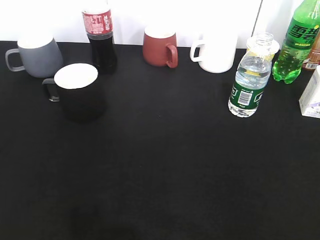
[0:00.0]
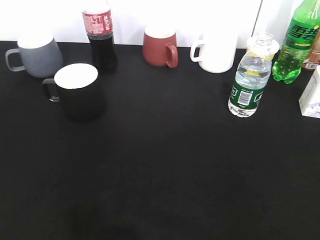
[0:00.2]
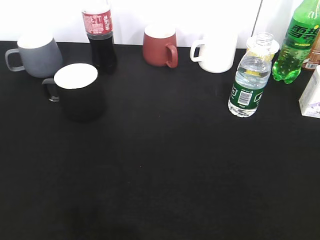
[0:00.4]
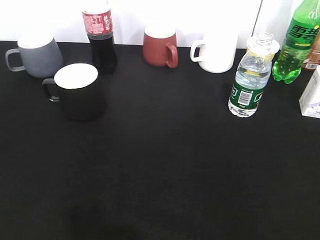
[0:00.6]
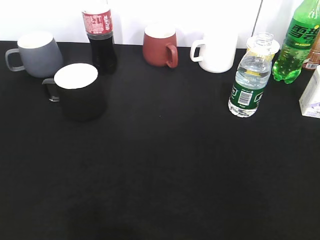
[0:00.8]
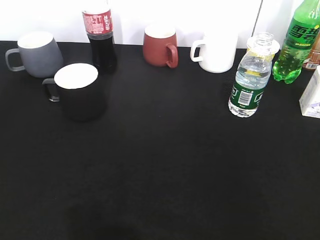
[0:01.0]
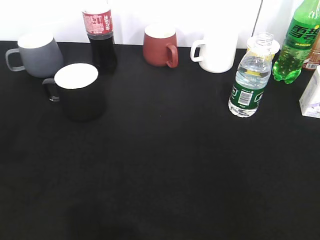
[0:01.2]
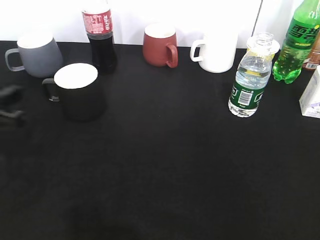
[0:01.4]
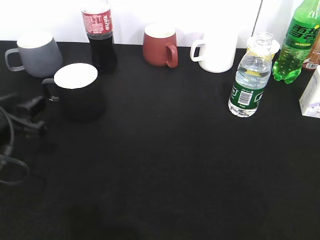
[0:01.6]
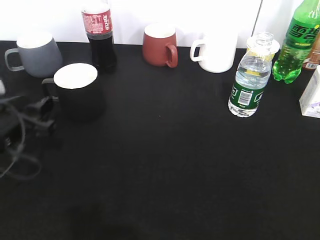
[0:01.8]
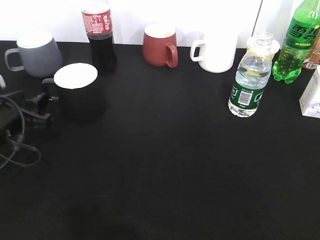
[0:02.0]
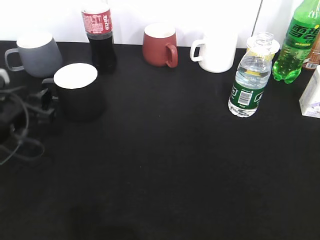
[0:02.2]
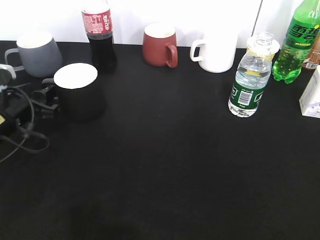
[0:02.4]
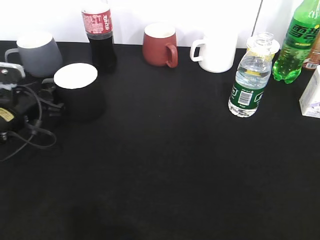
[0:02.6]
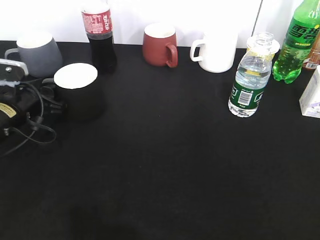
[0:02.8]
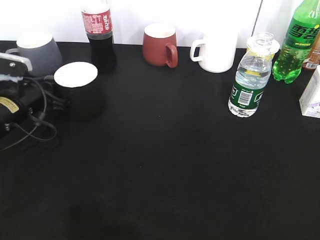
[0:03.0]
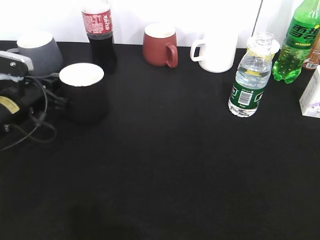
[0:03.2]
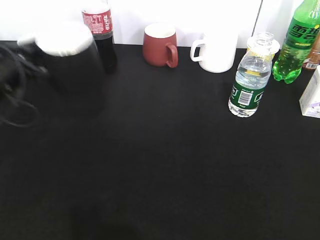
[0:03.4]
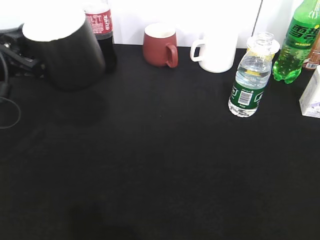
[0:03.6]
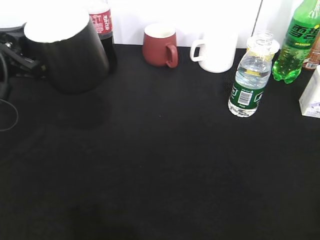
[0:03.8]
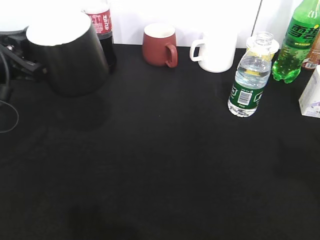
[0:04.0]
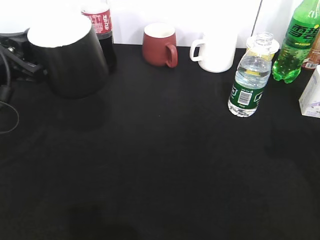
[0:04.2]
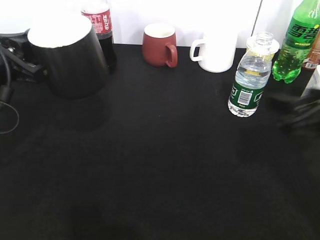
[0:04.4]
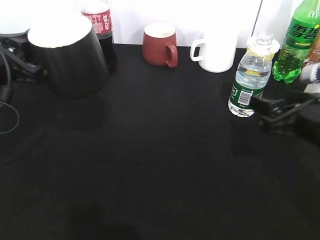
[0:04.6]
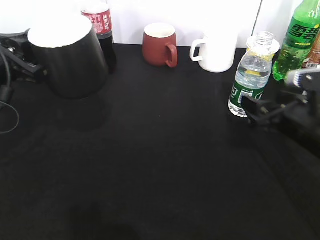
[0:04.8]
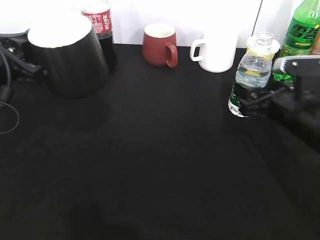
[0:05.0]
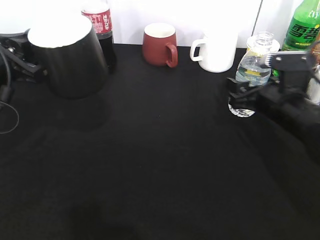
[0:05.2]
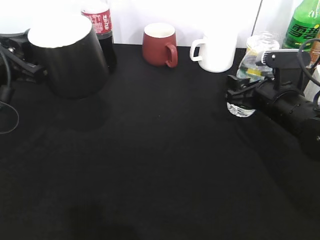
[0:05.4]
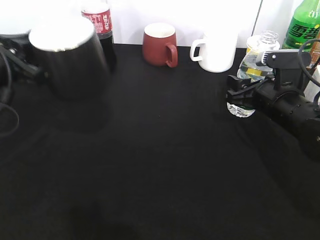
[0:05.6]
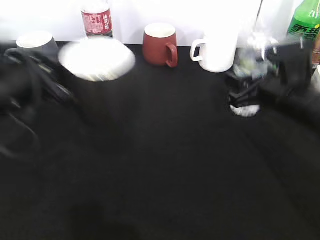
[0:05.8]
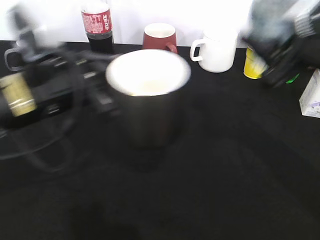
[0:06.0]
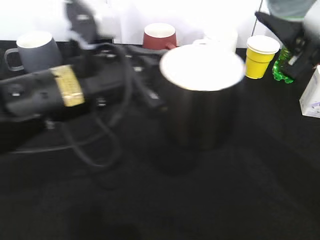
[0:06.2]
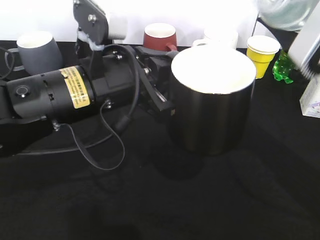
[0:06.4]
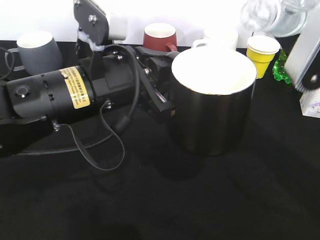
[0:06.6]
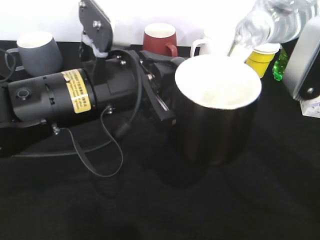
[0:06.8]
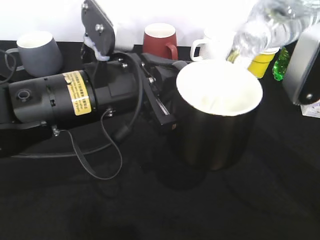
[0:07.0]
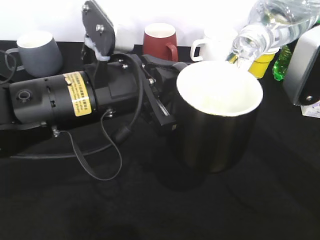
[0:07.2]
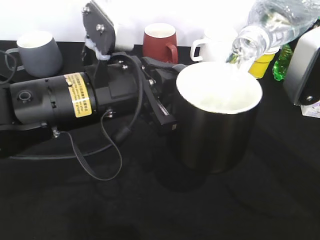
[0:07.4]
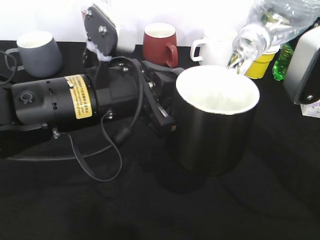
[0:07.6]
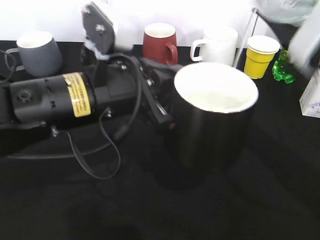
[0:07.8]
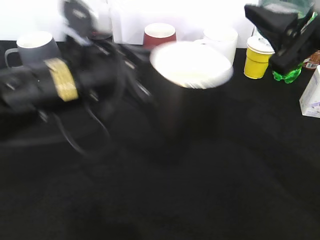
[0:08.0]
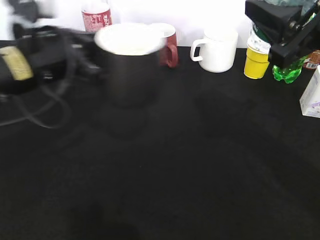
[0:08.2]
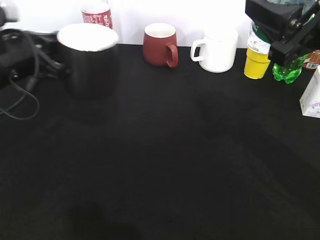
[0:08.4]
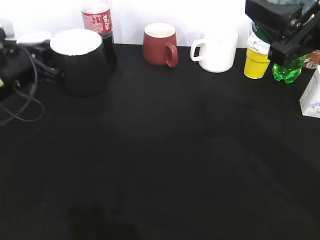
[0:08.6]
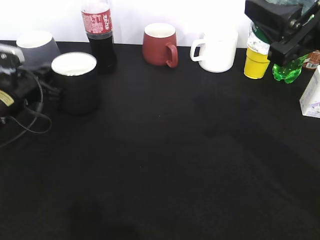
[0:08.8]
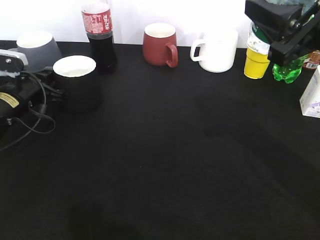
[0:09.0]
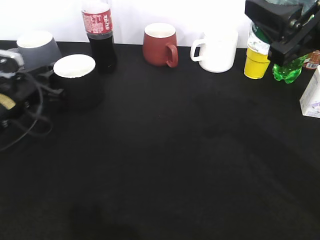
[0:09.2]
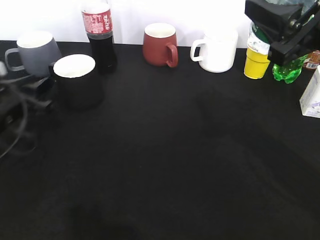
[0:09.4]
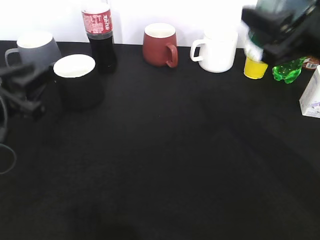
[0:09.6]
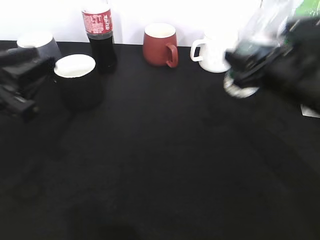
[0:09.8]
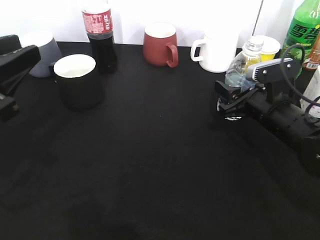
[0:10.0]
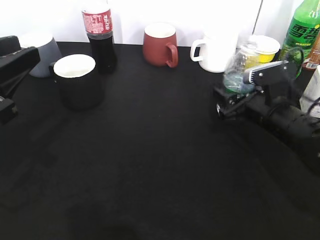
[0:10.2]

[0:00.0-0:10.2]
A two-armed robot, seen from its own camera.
Step, 0:00.6 to 0:03.0: Grasp the black cup with left gripper.
Step, 0:03.2 to 0:03.6: Lift the black cup with left gripper.
Step, 0:03.8 to 0:05.4: Grasp the bottle with water with right gripper.
Step, 0:05.6 to 0:07.8: Pour the water from bottle to cup with right gripper.
Step, 0:08.0 to 0:09.2: Place the black cup on the table with left gripper.
0:01.4 to 0:03.0: The left gripper shifts some 15 cm forward and downward, and closes up.
0:03.0 to 0:04.4: The right gripper heads forward and downward, covering about 20 cm. Meanwhile the left gripper shifts roughly 10 cm upward and backward.
0:04.4 to 0:05.8: The left gripper changes place by about 5 cm, while the right gripper travels forward by about 10 cm, and closes its fingers.
0:05.8 to 0:07.2: The left gripper heads to the right, covering some 10 cm. Meanwhile the right gripper moves upward and backward, approximately 15 cm.
0:07.2 to 0:08.8: The left gripper shifts about 25 cm to the left, forward and downward.
0:08.8 to 0:10.2: The right gripper heads downward and forward, covering roughly 20 cm, and opens up; the left gripper moves backward and upward, some 20 cm, and opens up.

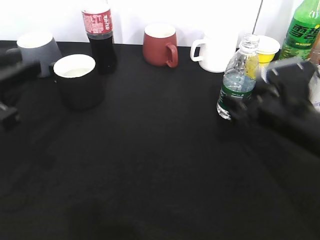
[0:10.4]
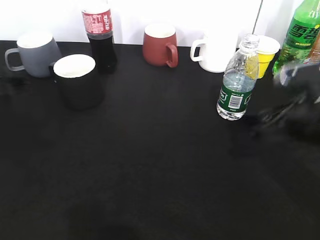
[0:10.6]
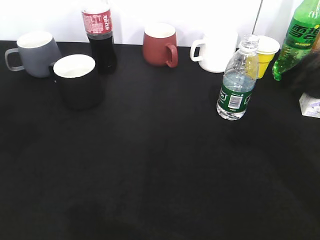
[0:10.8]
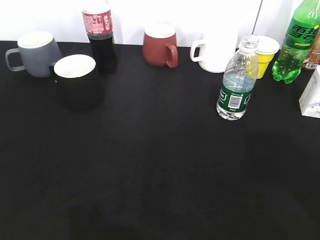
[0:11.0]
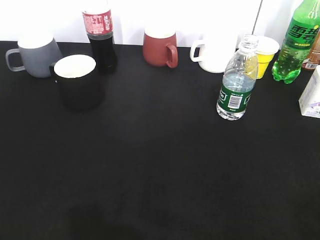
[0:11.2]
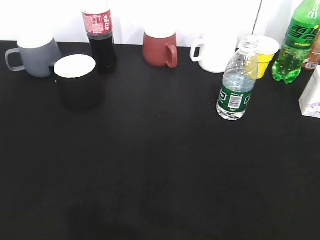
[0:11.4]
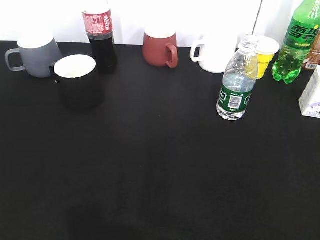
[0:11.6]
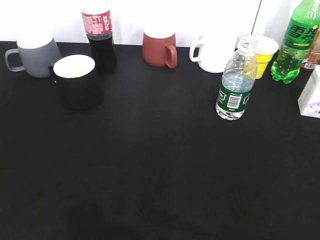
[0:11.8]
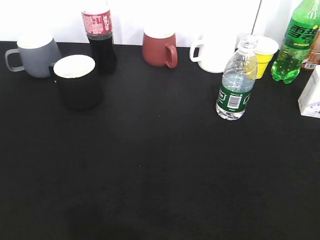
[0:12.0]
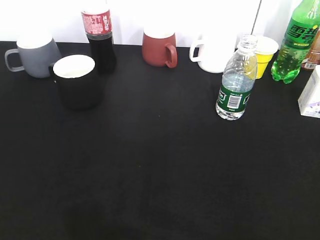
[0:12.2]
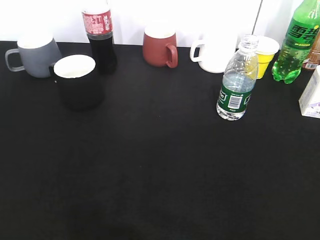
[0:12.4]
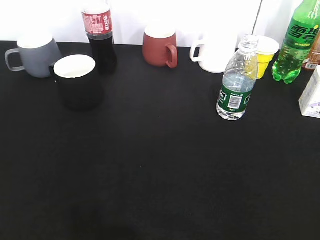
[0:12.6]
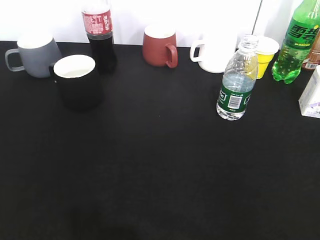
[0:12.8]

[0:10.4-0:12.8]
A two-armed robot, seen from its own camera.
0:10.4 to 0:11.6: The right gripper shifts approximately 30 cm backward and upward, and closes up. Meanwhile the left gripper heads backward and to the left, covering roughly 20 cm.

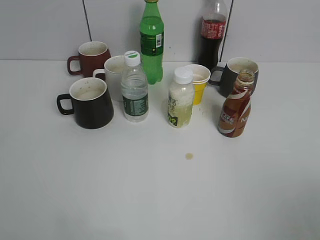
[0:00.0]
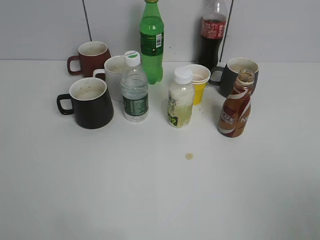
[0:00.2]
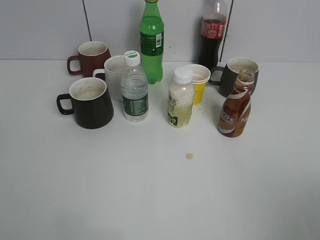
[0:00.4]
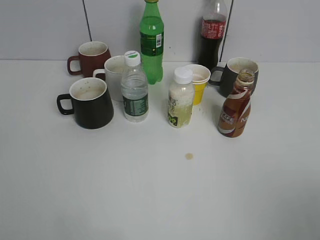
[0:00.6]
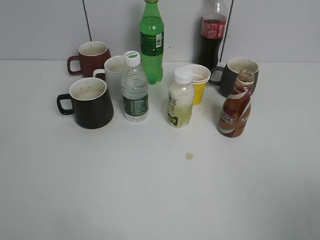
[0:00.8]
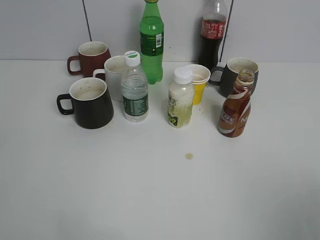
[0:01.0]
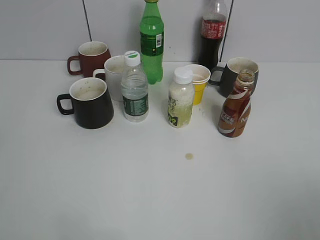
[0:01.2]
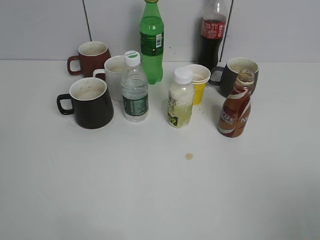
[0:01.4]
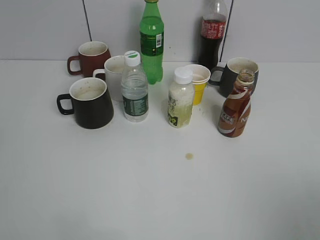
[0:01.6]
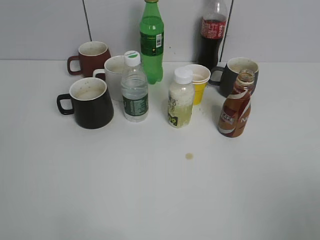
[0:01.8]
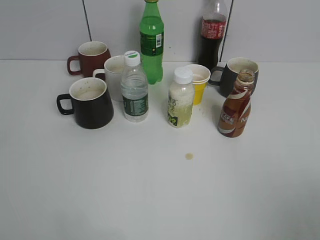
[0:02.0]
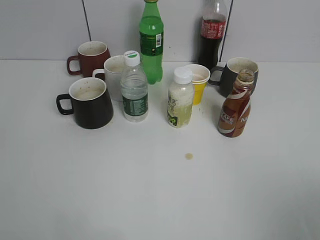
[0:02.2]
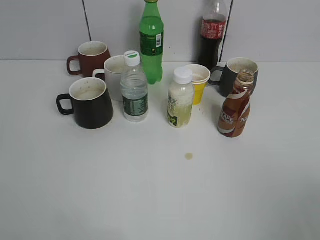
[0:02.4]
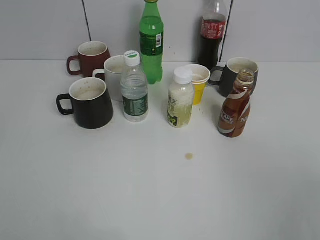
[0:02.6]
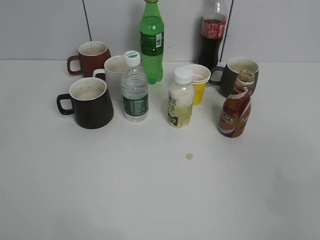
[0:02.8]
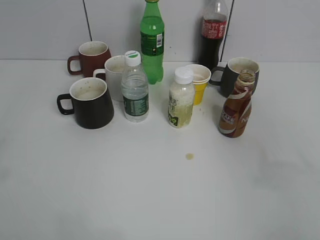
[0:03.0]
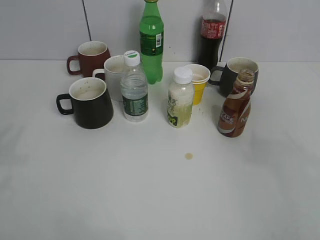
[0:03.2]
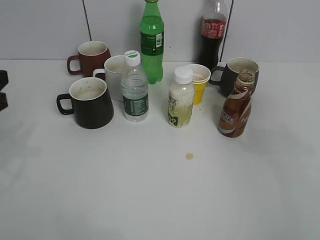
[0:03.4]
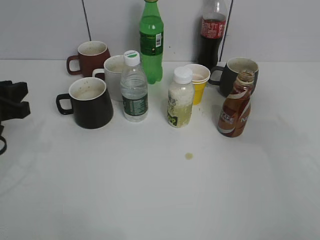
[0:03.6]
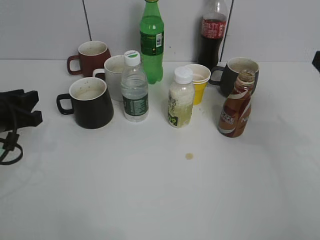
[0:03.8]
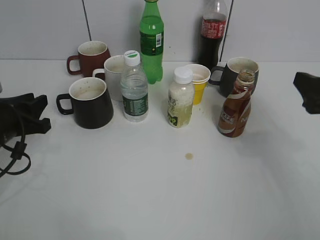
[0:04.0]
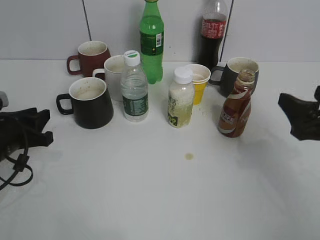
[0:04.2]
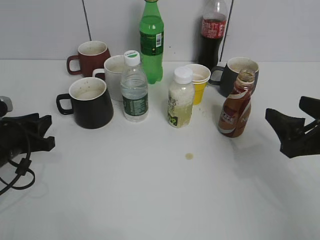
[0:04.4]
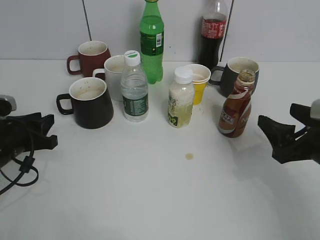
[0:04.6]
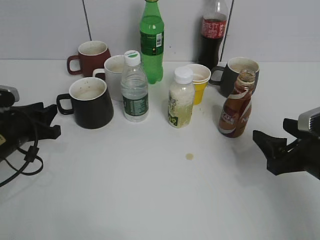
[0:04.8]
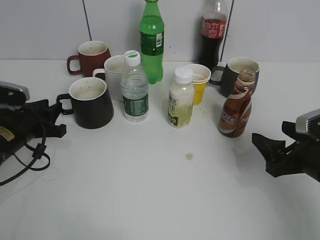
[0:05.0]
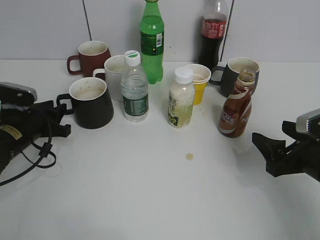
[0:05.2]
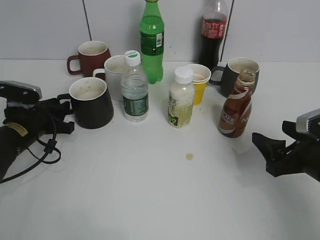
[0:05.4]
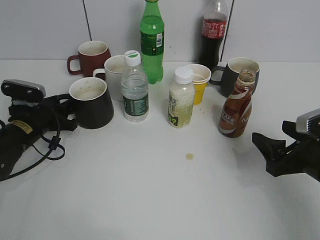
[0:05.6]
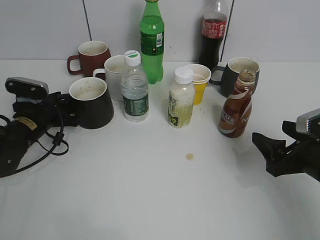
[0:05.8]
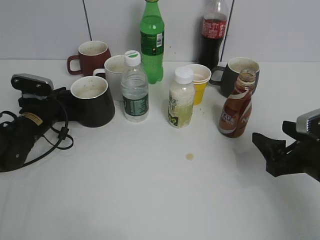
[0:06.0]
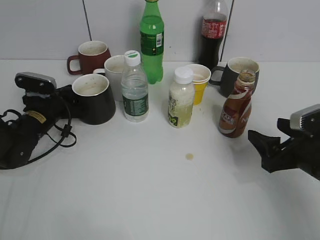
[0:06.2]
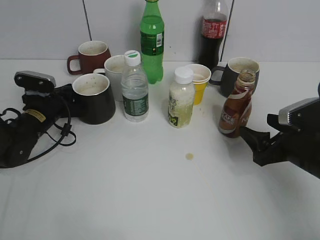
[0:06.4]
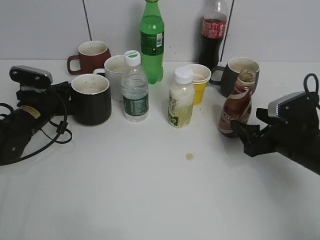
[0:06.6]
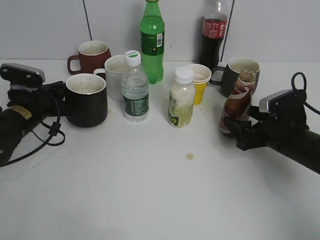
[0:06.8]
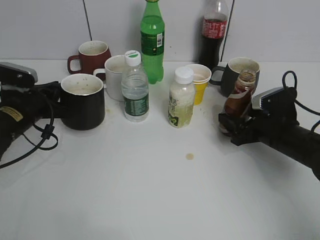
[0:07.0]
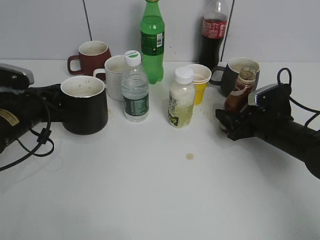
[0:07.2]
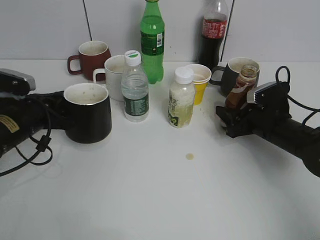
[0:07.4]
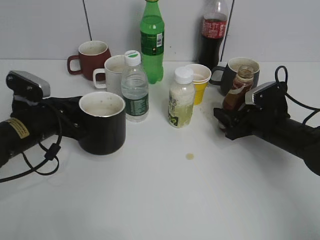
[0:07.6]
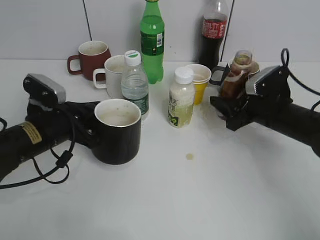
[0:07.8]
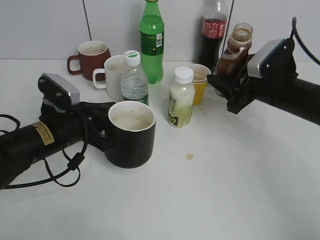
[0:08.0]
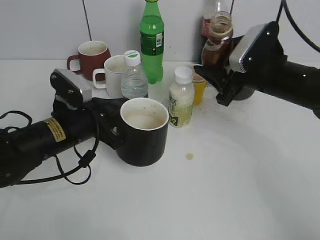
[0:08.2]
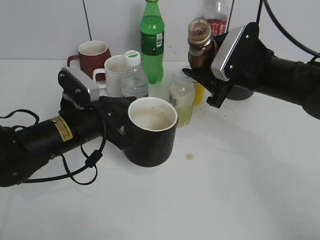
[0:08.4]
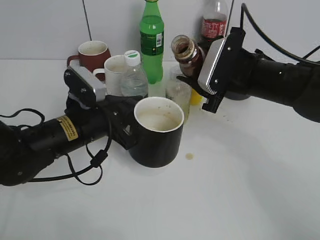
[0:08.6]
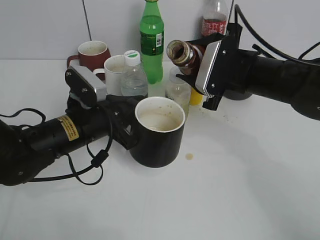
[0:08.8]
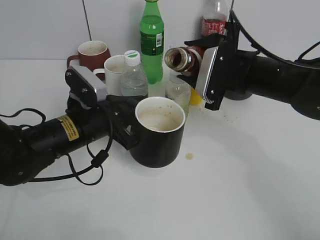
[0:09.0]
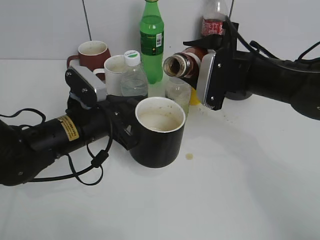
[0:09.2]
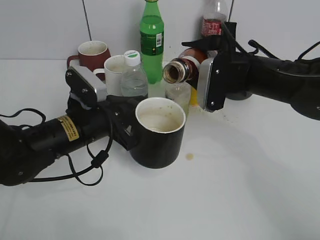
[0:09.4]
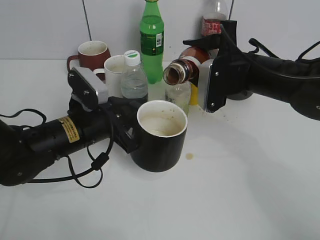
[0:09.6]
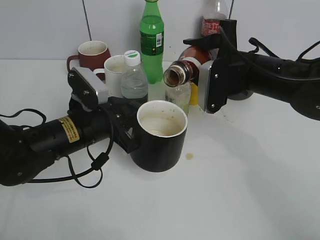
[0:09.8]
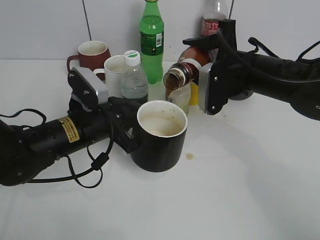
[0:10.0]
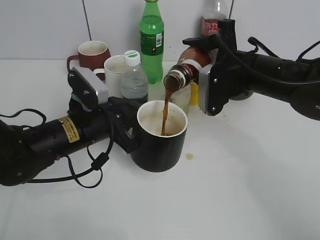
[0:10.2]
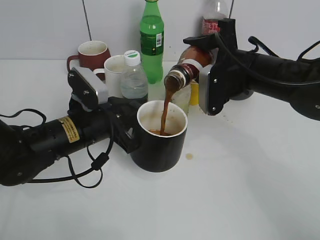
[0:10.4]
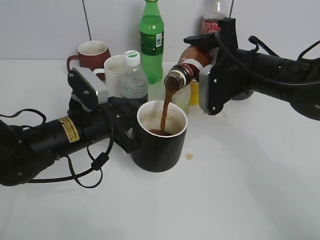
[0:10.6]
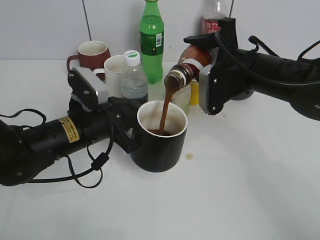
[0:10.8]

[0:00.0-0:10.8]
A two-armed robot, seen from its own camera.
Step, 0:02.2 to 0:06.0: Grasp the black cup with left gripper.
Step, 0:06.4 to 0:07.2: Lift the black cup with left gripper.
0:01.6 to 0:03.0: The right gripper travels forward by some 10 cm.
0:03.0 to 0:04.6: The two grippers go about 25 cm downward and forward.
0:04.6 to 0:06.2: The left gripper goes roughly 10 cm forward, and closes.
0:06.2 to 0:07.8: The left gripper is displaced backward and upward by approximately 10 cm. Meanwhile the right gripper heads forward, covering roughly 10 cm, and closes.
0:07.8 to 0:09.2: The left gripper shifts roughly 5 cm to the right. Meanwhile the right gripper travels upward and to the left by some 15 cm.
